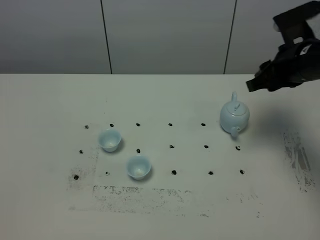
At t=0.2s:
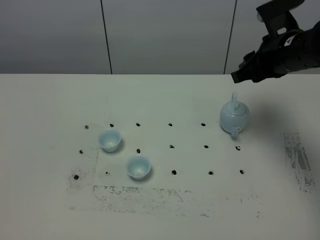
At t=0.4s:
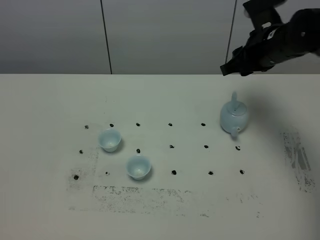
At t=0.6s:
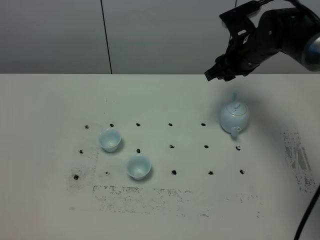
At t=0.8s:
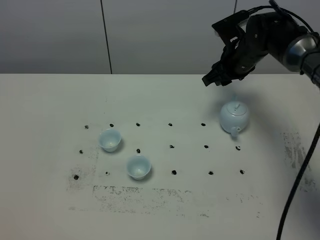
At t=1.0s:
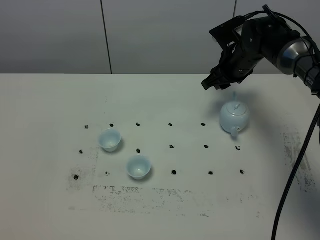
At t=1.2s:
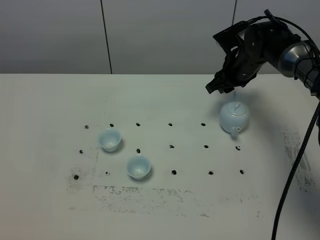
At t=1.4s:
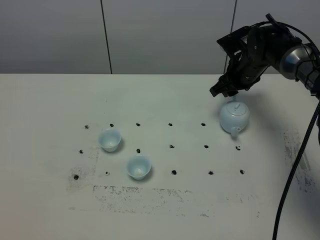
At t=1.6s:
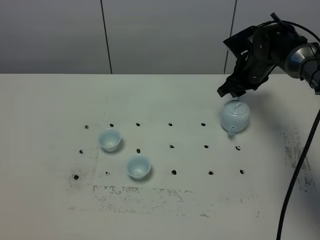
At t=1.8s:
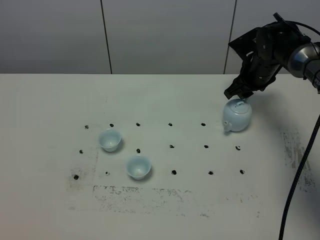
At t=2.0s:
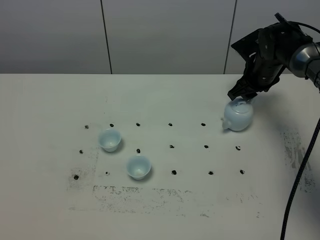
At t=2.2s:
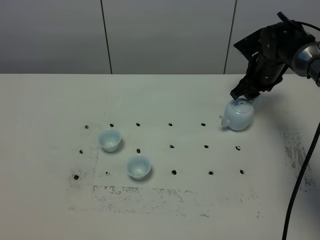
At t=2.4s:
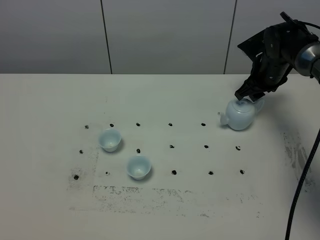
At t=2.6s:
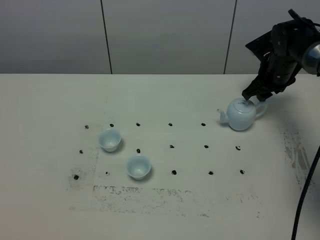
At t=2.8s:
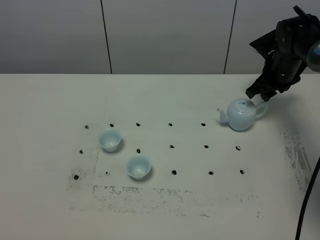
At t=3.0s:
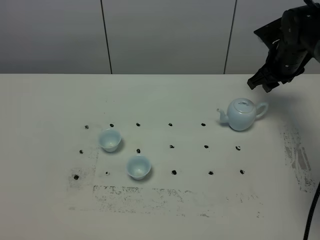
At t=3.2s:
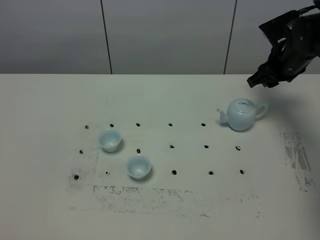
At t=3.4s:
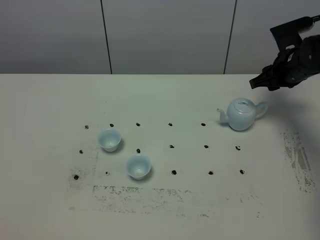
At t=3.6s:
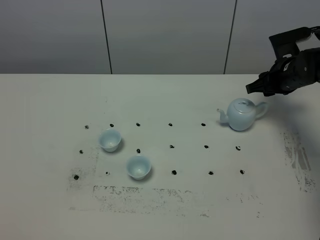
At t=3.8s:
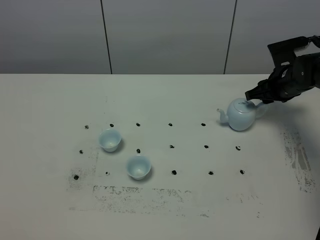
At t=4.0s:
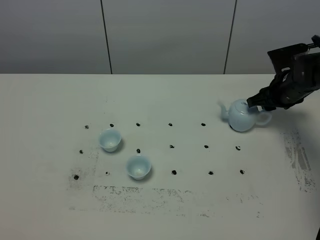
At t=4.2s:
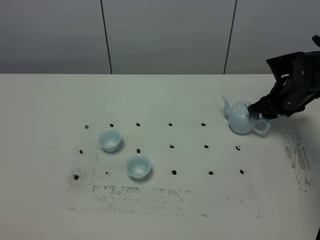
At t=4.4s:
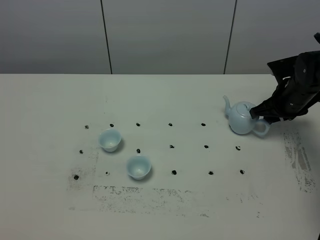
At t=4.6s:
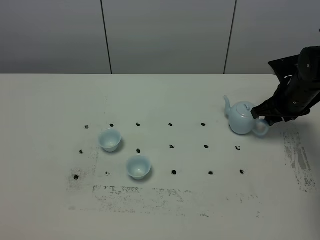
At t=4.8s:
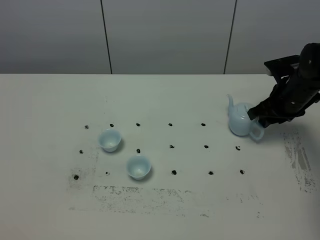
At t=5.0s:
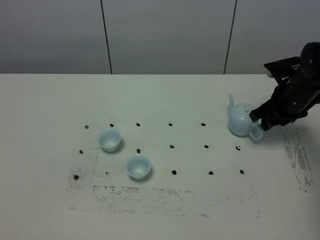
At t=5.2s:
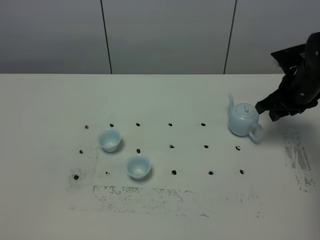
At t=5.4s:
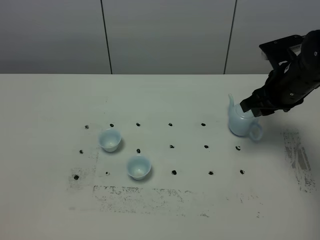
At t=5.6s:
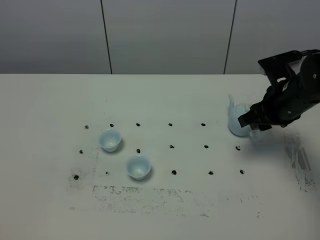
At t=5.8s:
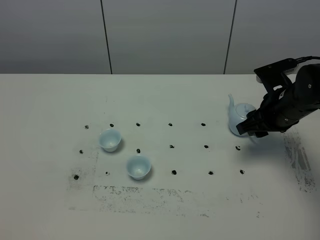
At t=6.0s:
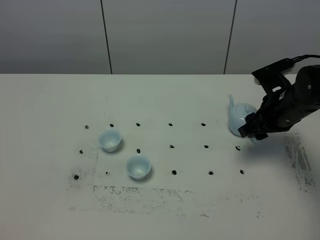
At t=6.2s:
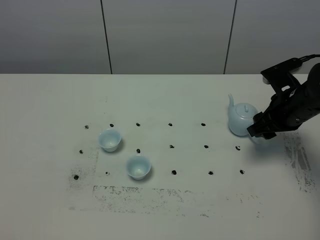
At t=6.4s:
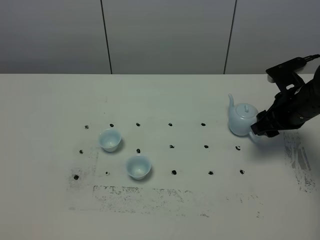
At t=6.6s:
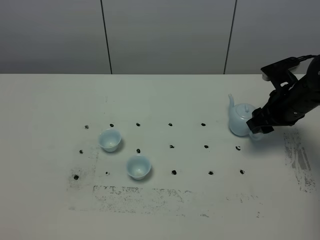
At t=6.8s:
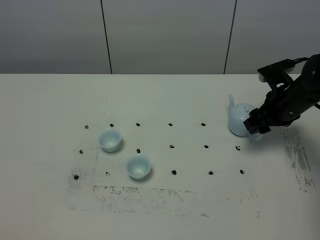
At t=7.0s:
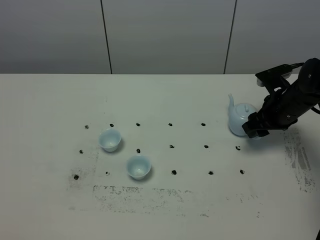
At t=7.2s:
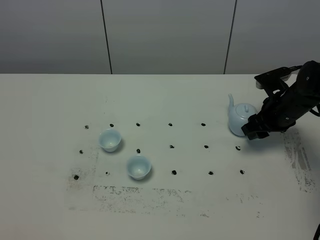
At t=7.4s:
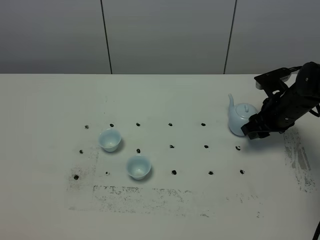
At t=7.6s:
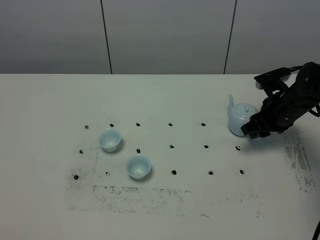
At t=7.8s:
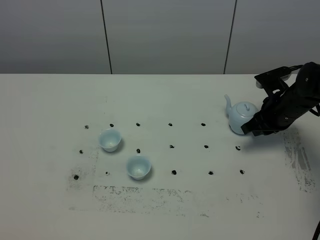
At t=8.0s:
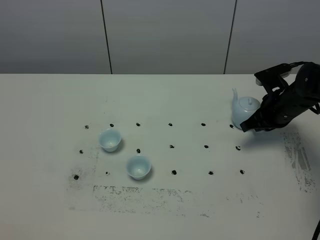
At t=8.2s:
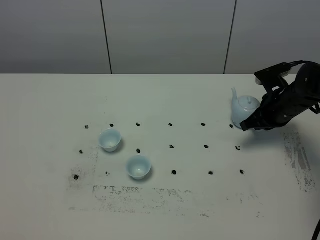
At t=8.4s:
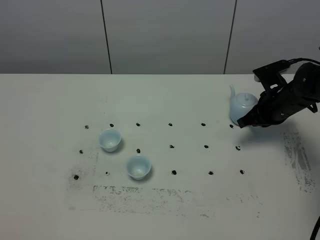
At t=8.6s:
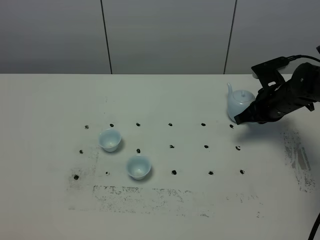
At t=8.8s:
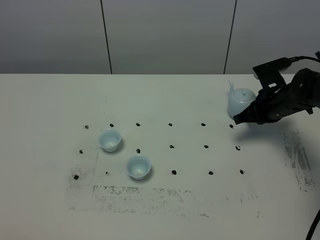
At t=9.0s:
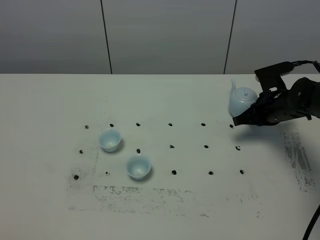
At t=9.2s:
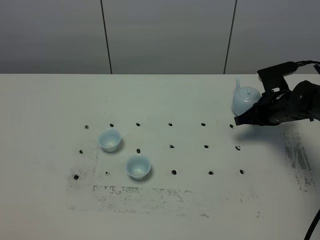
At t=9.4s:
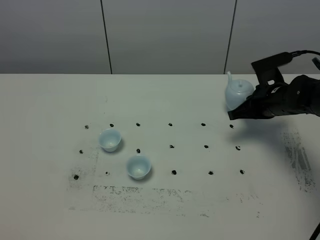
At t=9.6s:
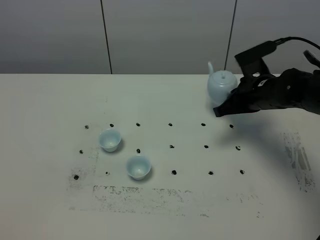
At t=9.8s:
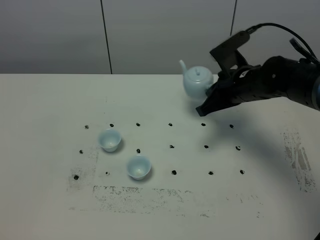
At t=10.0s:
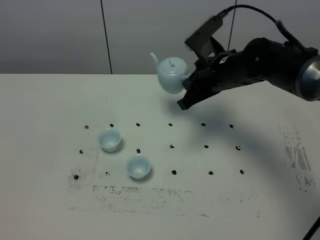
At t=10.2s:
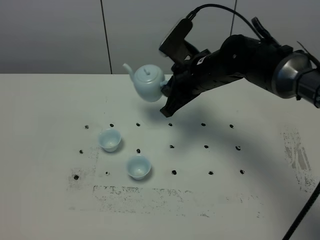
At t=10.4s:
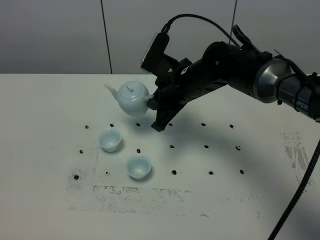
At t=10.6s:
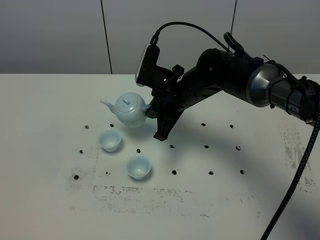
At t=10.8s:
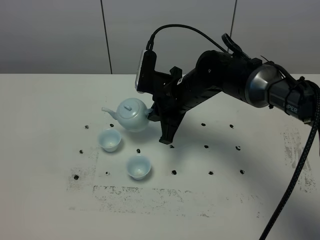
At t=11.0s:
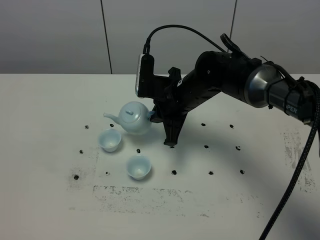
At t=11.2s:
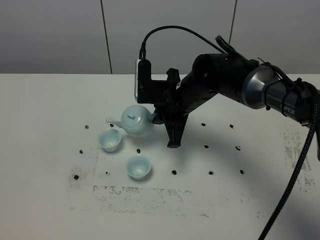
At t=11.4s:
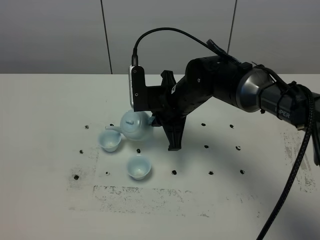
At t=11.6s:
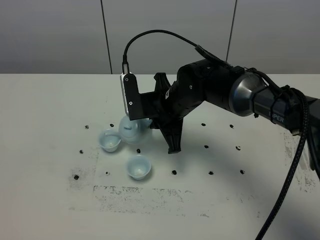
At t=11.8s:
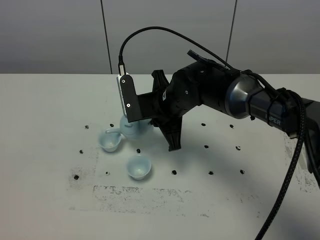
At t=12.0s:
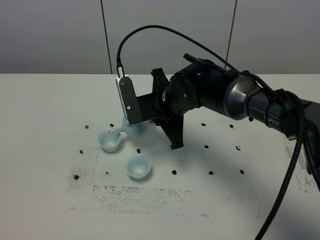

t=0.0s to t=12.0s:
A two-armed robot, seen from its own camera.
Task of the whole recording: grasp the blue porcelain teapot and pour the tea into the two blue porcelain teacups one by one, put the blue porcelain teapot back in its original place.
t=0.0s to t=1.6s: The right gripper shifts roughly 15 cm forward and downward.
t=1.6s to t=3.0s: The right gripper travels to the right by approximately 5 cm.
t=3.0s to t=4.4s: The right gripper heads downward and backward, covering some 10 cm.
t=4.4s to t=6.0s: The right gripper goes roughly 10 cm backward.
t=6.0s to t=7.6s: The right gripper moves roughly 5 cm.
t=7.6s to t=9.0s: The right gripper closes its fingers.
t=9.0s to t=10.4s: The right gripper moves to the left and upward, some 20 cm.

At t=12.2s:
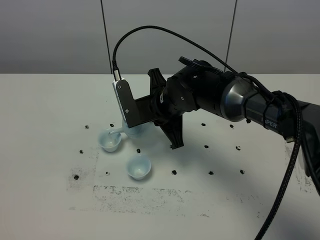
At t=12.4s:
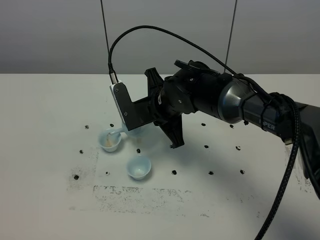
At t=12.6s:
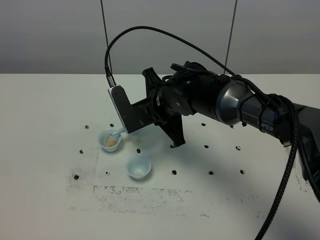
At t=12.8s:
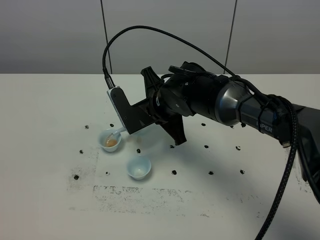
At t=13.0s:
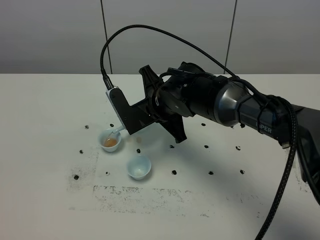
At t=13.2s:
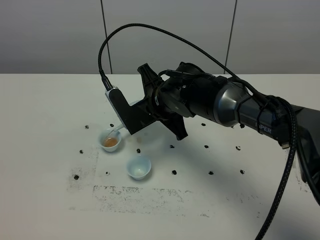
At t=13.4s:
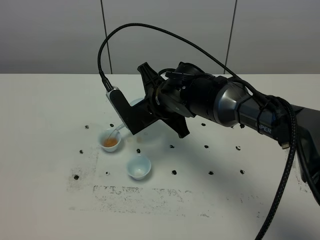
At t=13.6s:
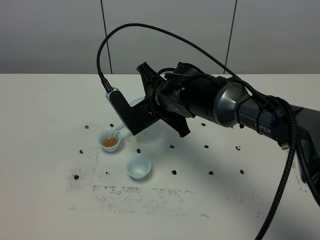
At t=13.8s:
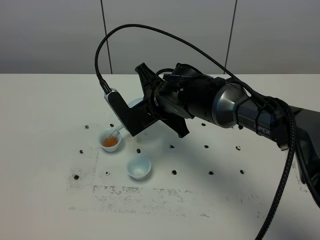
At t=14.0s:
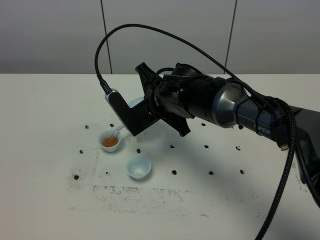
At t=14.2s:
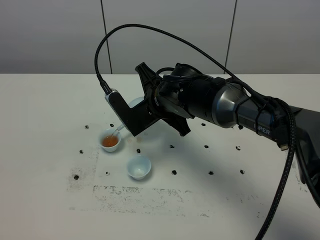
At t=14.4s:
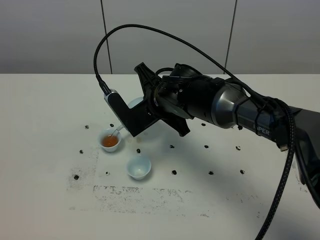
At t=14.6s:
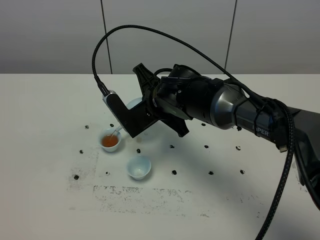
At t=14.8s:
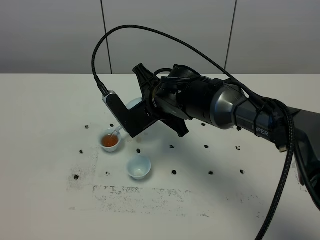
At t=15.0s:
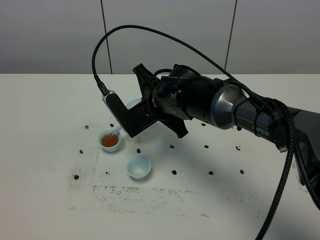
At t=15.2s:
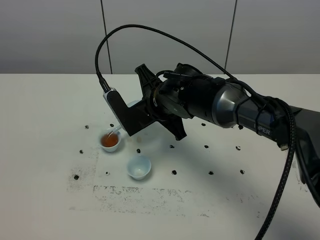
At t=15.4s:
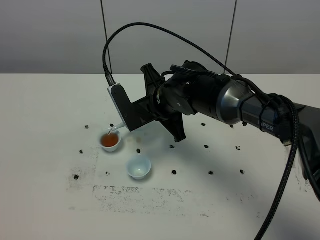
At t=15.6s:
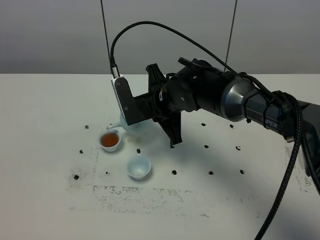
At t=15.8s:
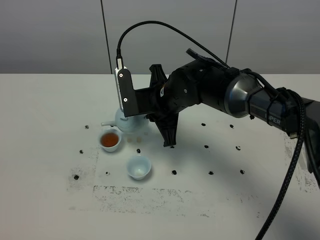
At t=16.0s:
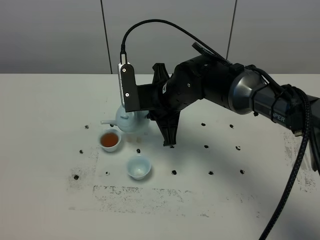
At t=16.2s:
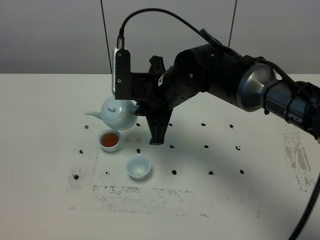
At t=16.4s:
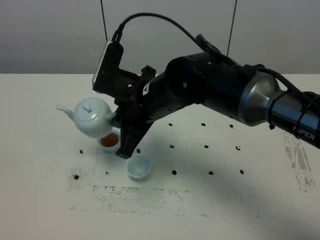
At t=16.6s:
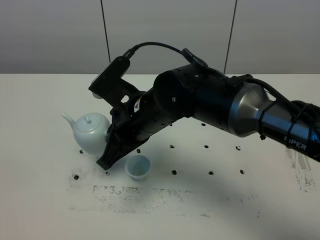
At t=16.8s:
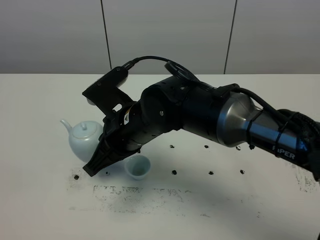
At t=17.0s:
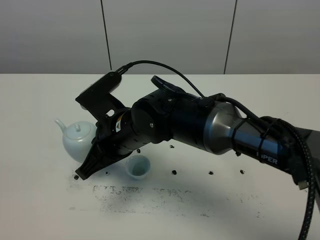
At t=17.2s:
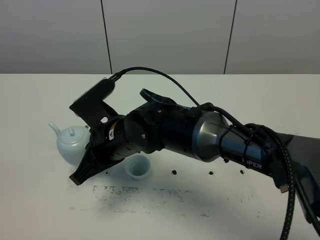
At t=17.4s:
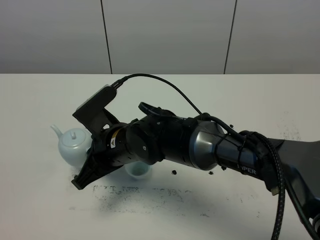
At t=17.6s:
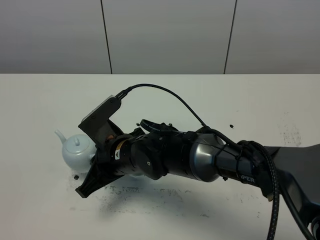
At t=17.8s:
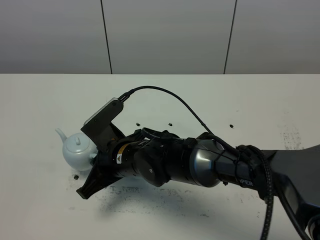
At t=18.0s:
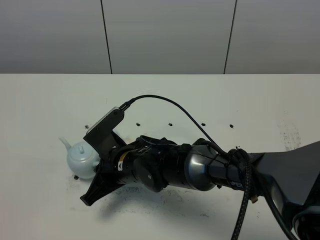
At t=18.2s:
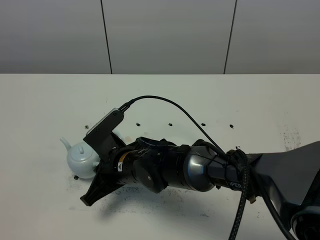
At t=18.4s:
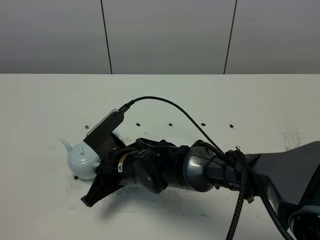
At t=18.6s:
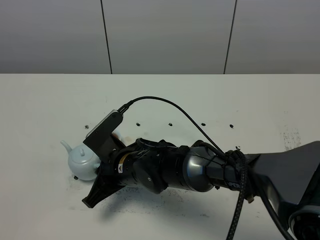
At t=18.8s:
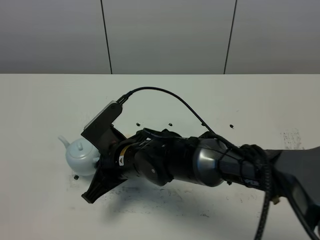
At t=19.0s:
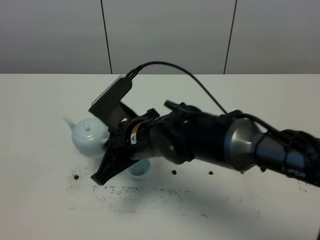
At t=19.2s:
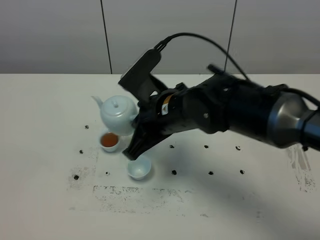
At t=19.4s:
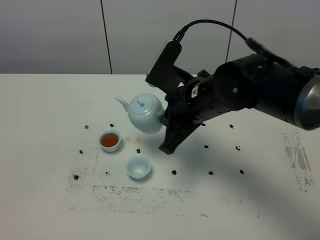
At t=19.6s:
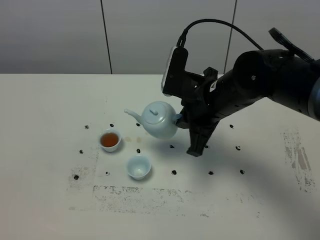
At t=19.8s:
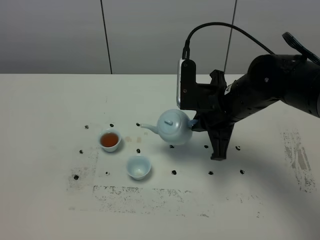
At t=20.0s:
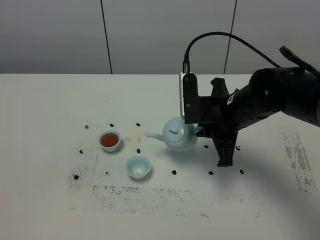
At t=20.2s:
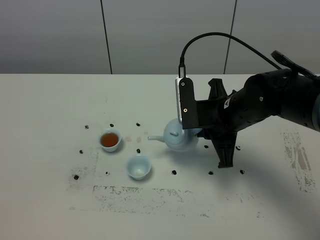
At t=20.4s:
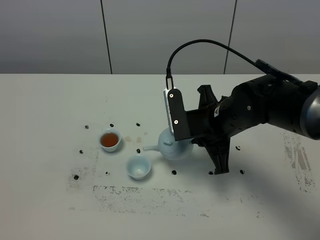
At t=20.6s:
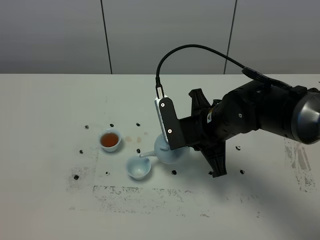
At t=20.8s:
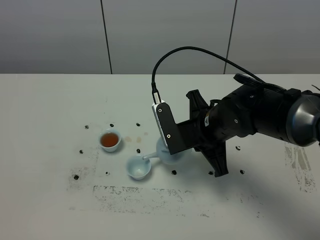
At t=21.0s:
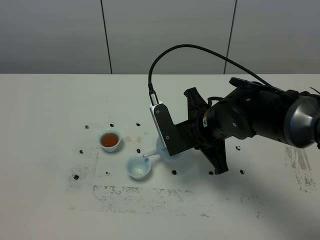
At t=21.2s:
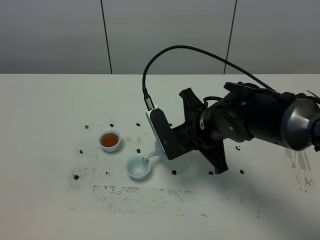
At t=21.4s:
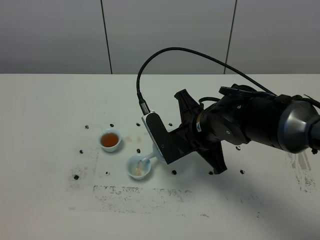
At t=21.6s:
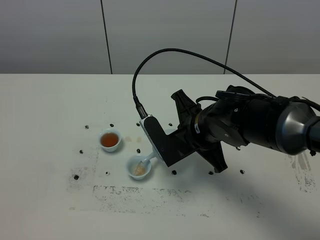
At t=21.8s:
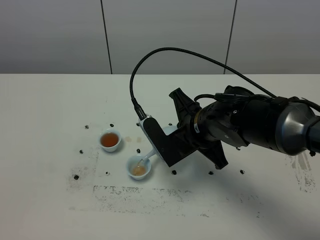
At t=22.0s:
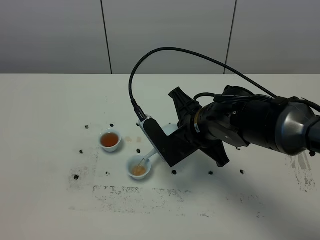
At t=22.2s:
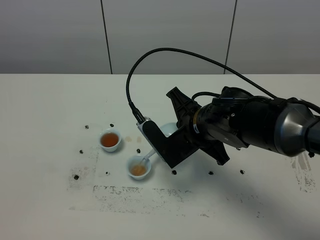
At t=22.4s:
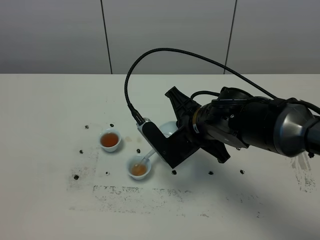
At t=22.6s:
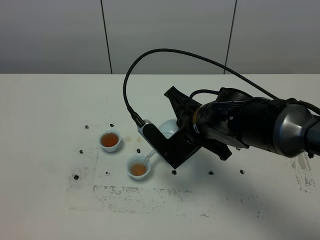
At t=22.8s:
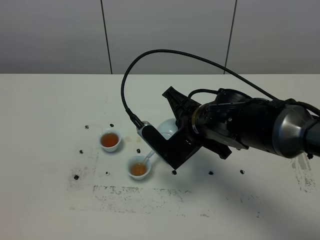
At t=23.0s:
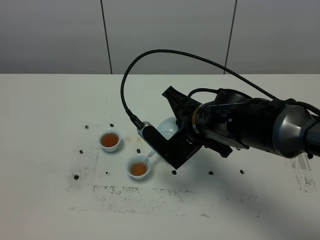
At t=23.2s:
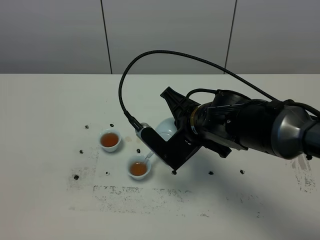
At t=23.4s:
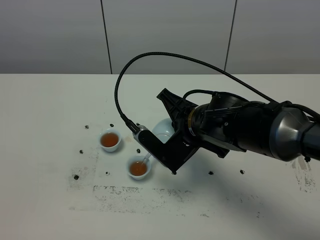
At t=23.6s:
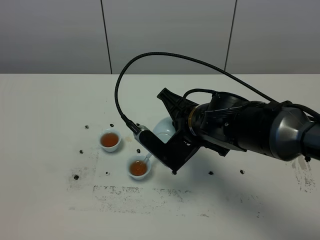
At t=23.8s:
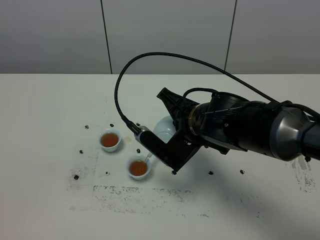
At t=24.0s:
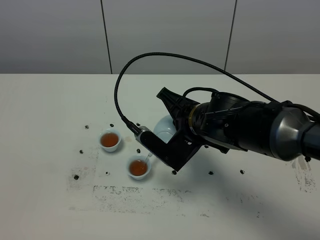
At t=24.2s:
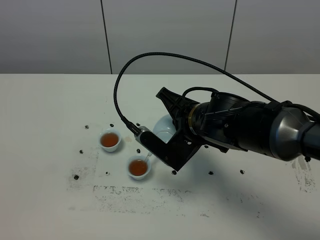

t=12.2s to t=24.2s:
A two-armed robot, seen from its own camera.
Task of the whole recording: grasp the blue porcelain teapot and pour the tea into the two blue porcelain teacups one by one, put the blue porcelain teapot back in its original place.
t=13.8s to t=15.2s: Both grippers stay put.
t=15.2s to t=16.6s: The right gripper moves backward, approximately 10 cm.
t=16.6s to t=18.2s: The right gripper goes some 10 cm downward.
t=18.2s to t=19.8s: The right gripper moves to the right, upward and forward, about 20 cm.
t=19.8s to t=21.2s: The right gripper ends up approximately 5 cm from where it was.
t=22.6s to t=24.2s: The grippers make only small movements.
